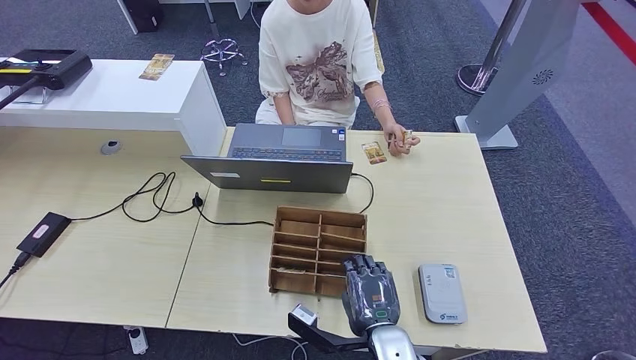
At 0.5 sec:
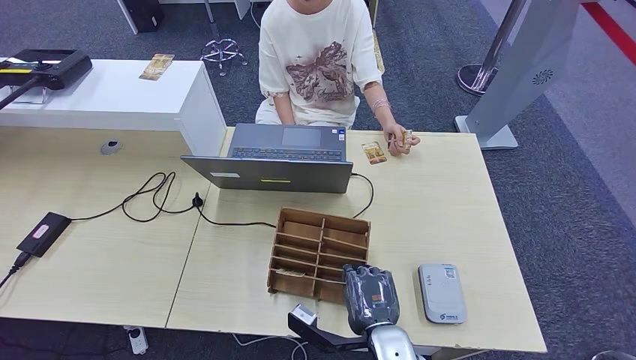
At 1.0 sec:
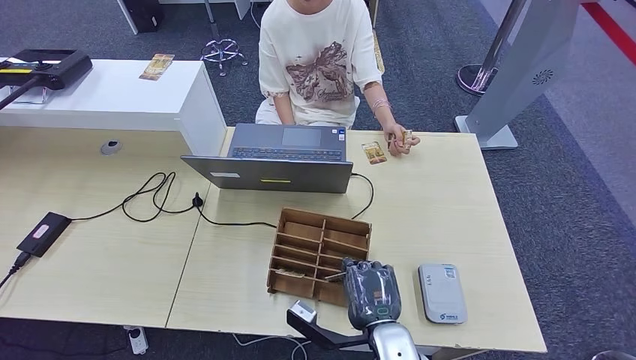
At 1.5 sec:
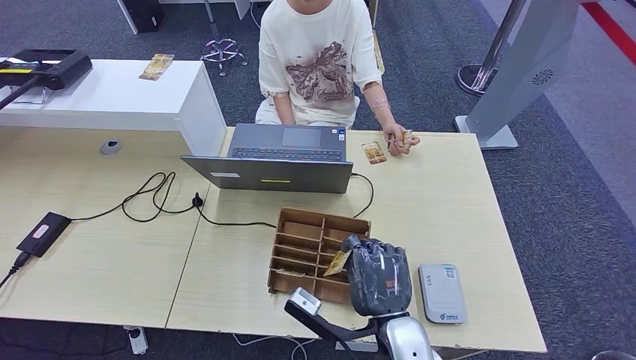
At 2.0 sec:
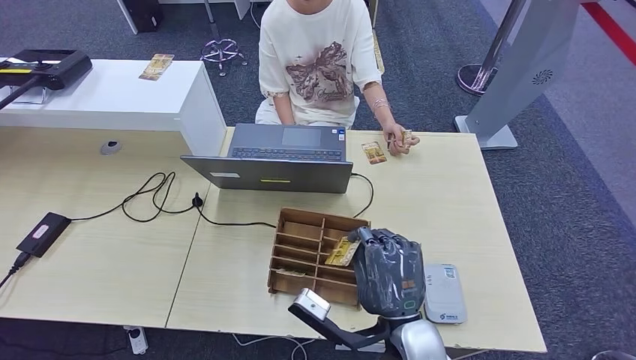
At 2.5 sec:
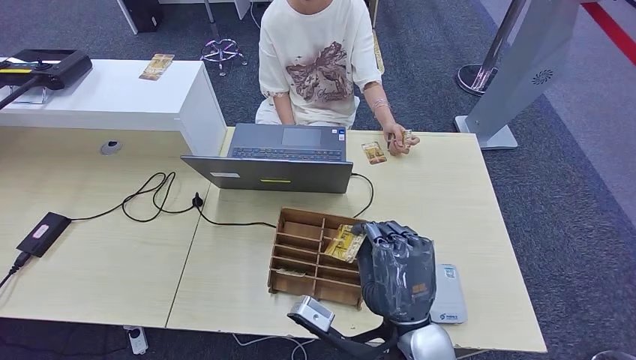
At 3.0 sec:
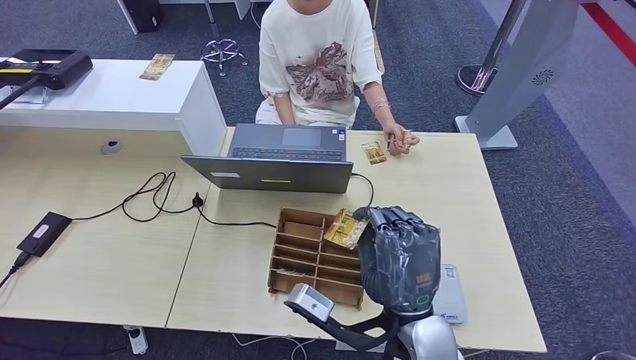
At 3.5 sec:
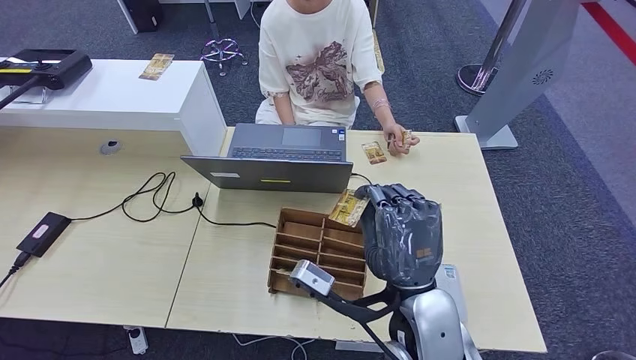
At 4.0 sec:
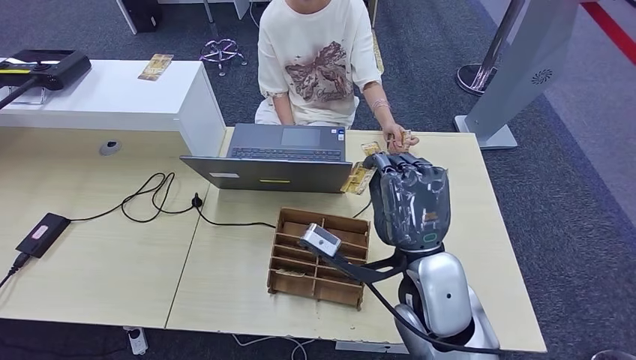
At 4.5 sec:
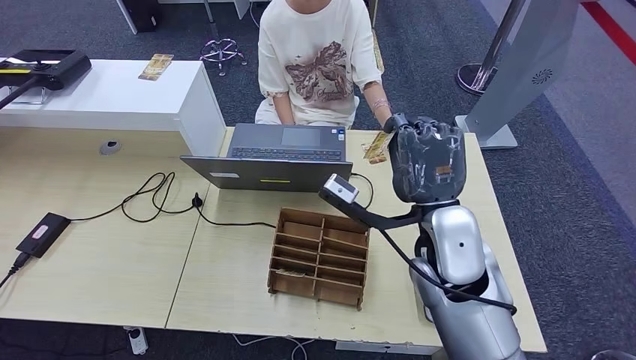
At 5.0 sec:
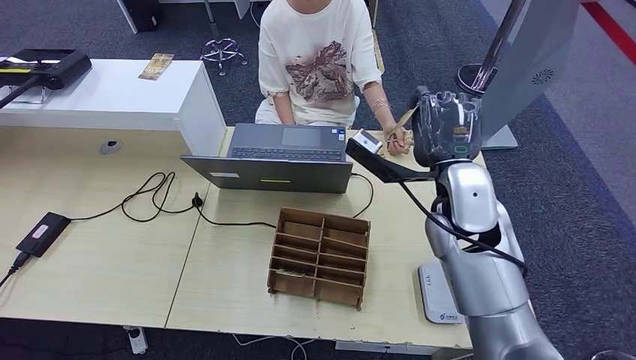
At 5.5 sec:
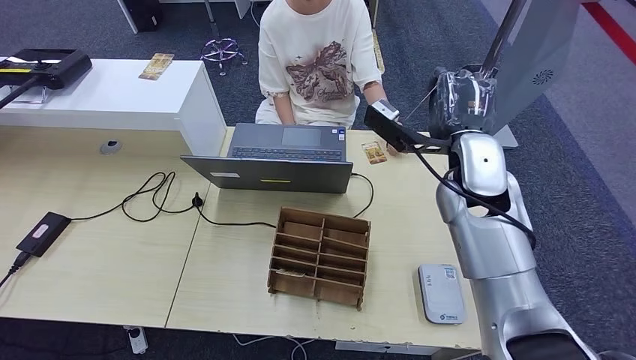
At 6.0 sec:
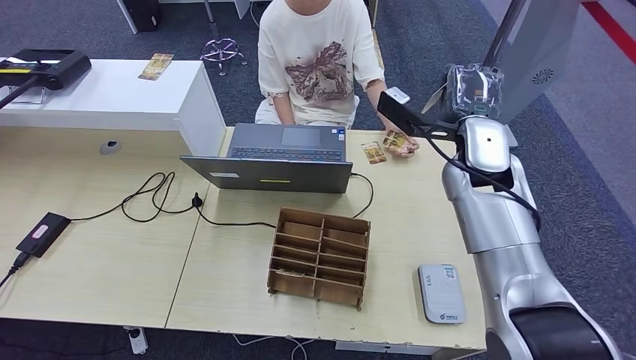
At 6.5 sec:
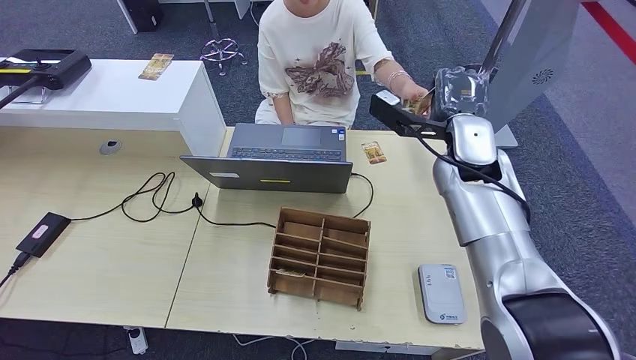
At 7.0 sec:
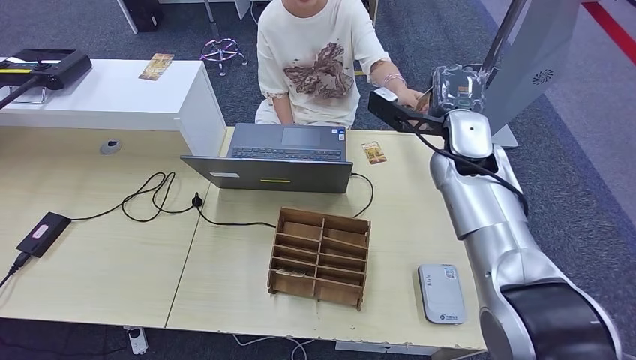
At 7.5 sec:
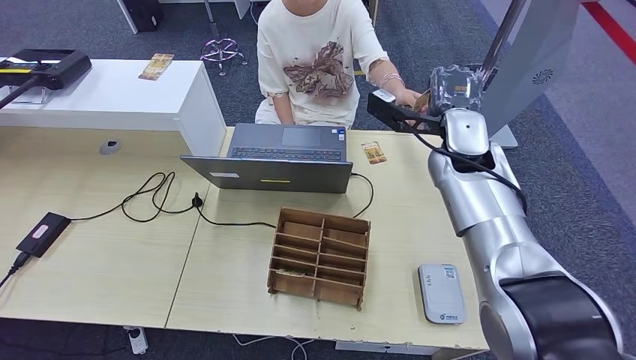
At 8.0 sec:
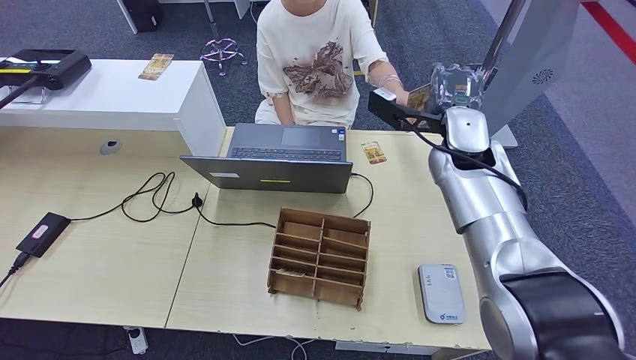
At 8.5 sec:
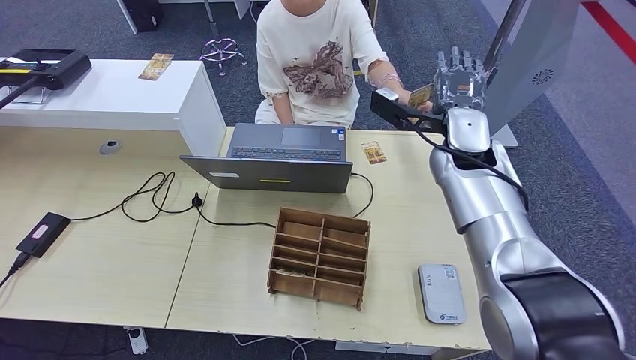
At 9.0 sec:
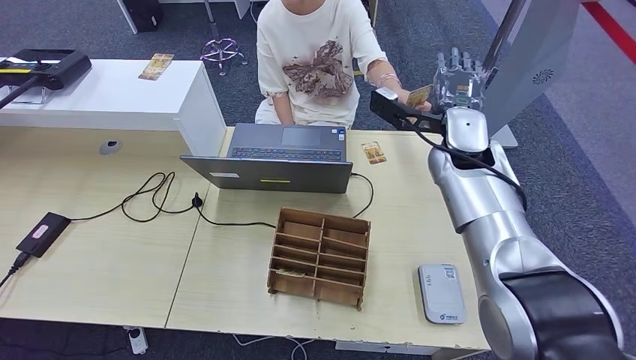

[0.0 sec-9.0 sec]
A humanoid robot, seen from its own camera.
0.0 sec to 2.0 sec: The right hand moves upward, about 5 cm.
2.0 sec to 4.5 sec: The right hand travels forward and upward by roughly 15 cm.
4.5 sec to 7.0 sec: The right hand travels forward by roughly 15 cm.
7.0 sec to 9.0 sec: Both hands stay about where they are.

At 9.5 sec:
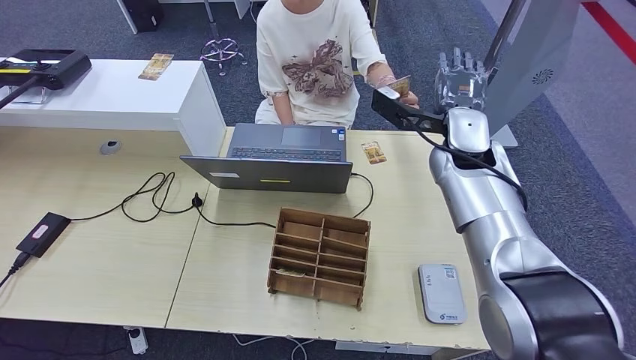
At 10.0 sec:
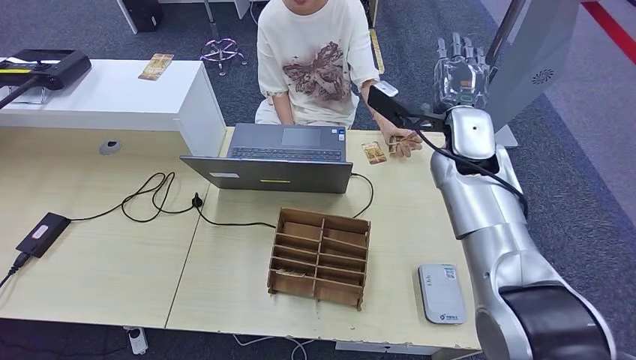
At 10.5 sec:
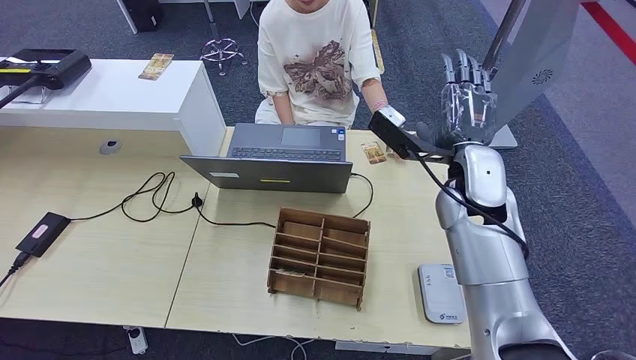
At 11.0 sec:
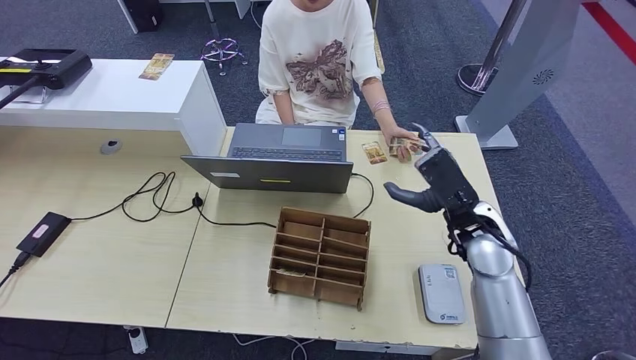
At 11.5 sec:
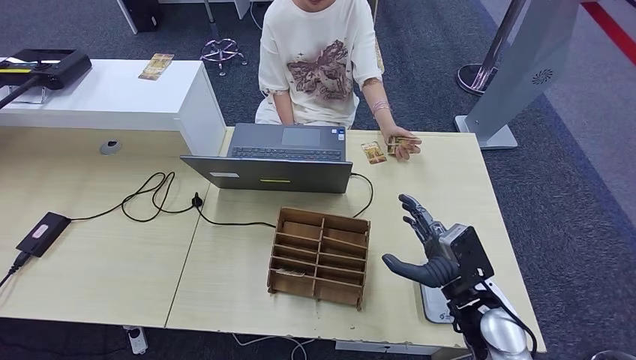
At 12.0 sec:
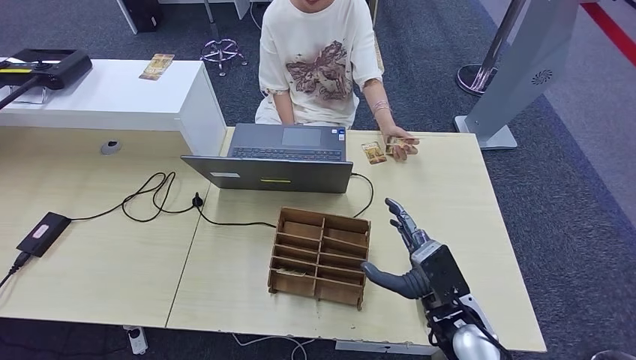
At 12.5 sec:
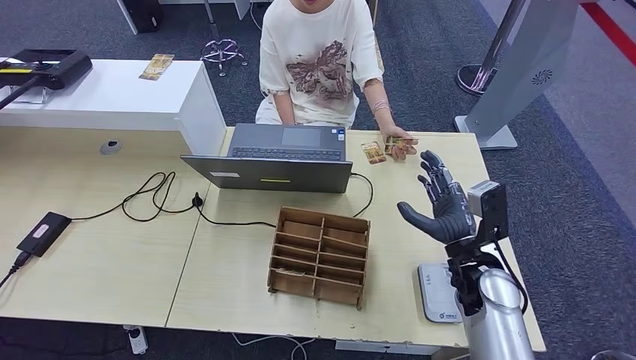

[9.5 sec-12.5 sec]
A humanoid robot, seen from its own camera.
Step, 9.5 sec to 12.5 sec: Hand the room key to the person.
9.5 sec to 11.0 sec: The right hand shifts roughly 15 cm backward and downward.
11.0 sec to 12.5 sec: The right hand moves downward, approximately 5 cm, and reaches some 10 cm backward, then returns.
